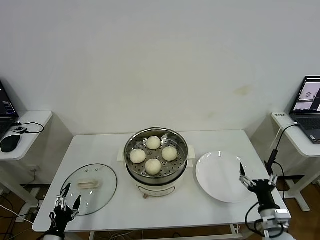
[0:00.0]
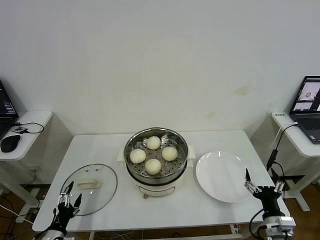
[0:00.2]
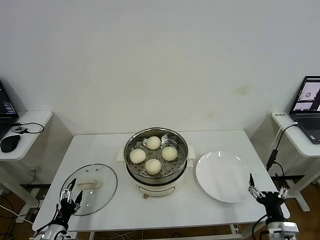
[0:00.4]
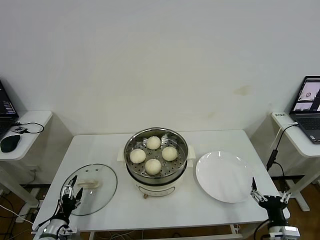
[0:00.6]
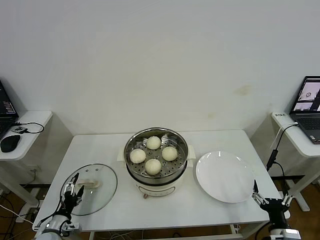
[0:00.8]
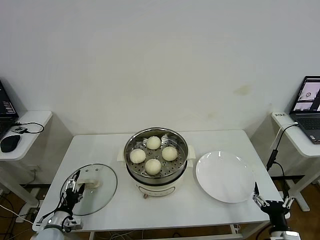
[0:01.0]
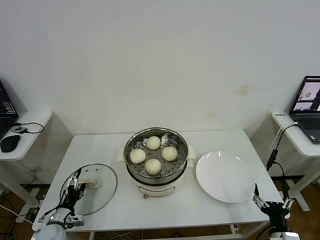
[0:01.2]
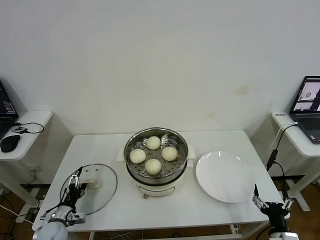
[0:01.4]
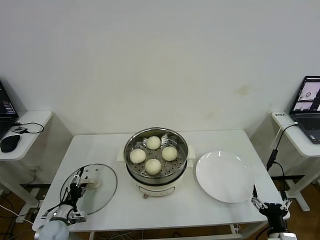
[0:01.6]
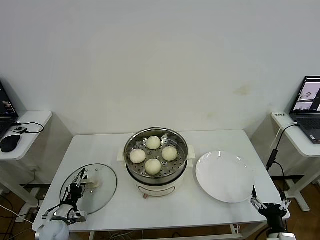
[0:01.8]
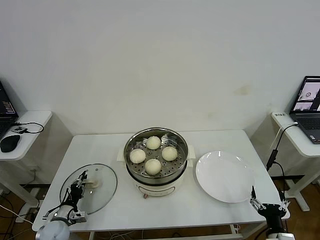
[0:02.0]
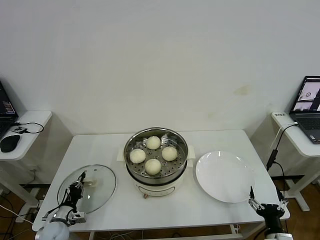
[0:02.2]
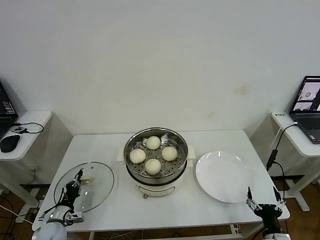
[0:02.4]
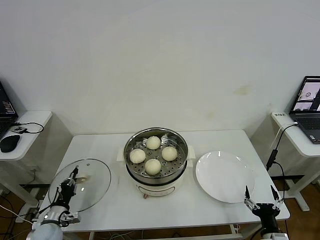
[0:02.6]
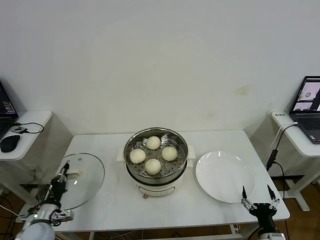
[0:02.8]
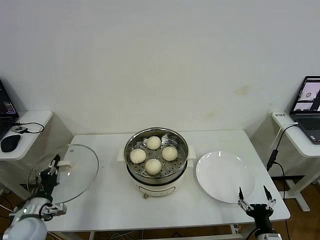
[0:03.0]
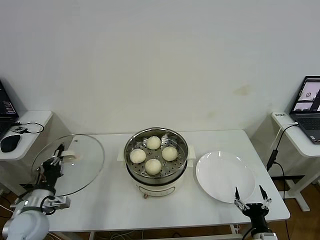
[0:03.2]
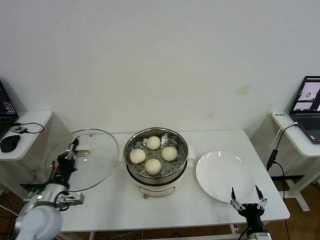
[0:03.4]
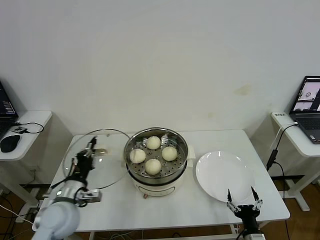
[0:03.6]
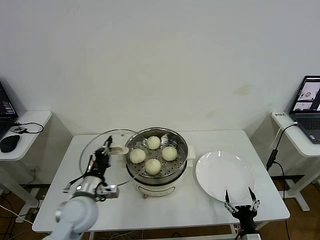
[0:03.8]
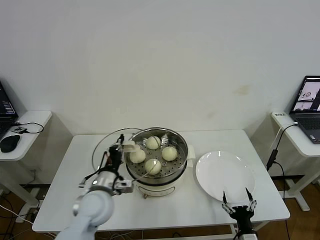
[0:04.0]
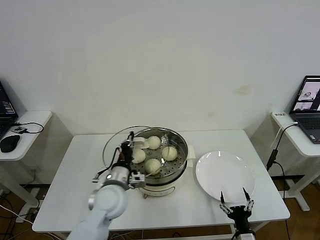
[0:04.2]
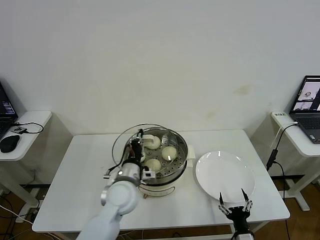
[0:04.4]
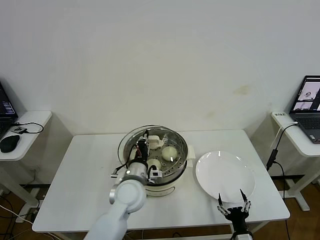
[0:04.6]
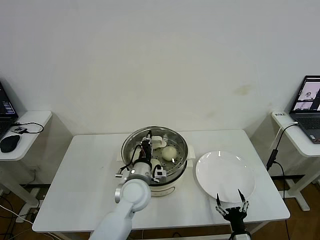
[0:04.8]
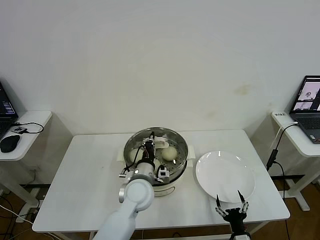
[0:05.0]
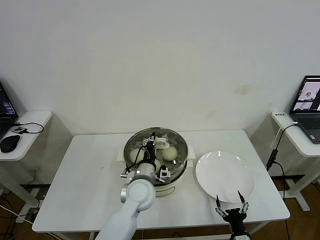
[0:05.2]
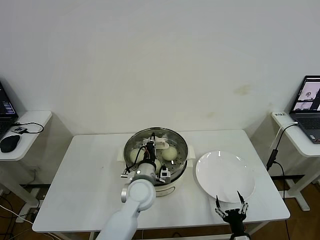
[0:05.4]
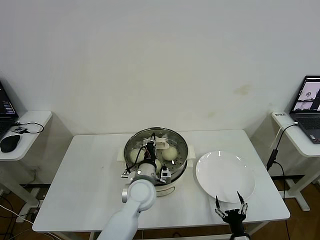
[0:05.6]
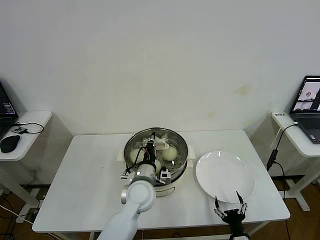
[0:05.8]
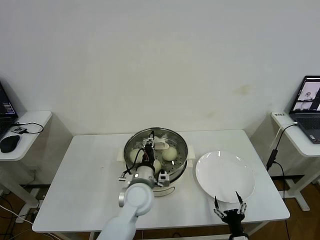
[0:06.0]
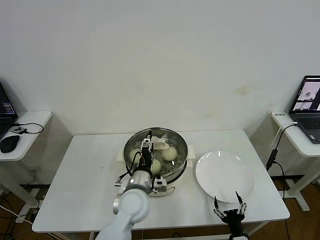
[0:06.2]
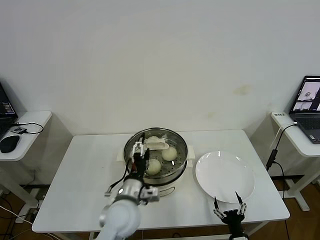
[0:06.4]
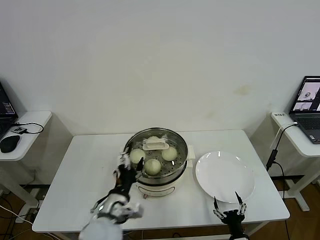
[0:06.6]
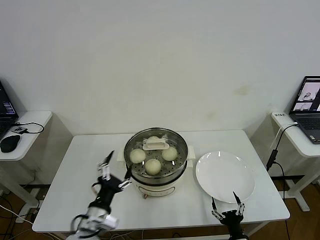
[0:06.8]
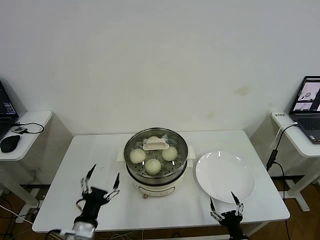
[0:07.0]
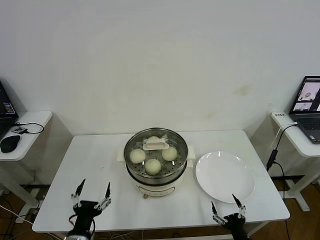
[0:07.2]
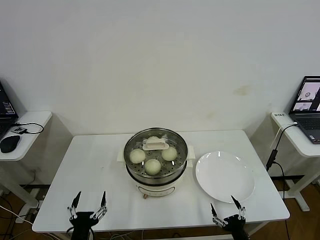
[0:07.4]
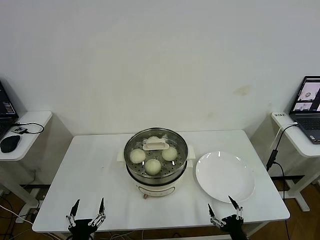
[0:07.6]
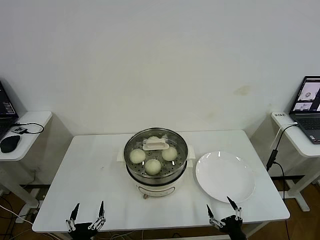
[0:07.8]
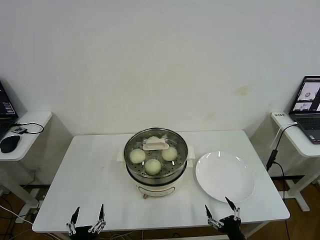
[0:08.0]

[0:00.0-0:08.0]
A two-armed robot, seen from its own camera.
Step, 0:00.0 to 0:02.2: Grasp the pot lid with left gripper.
Step, 0:02.4 to 0:06.0: Place the pot lid on the steamer with left gripper.
0:00.0 to 0:01.6: The left gripper moves forward, approximately 10 cm, while the right gripper goes approximately 5 cm backward.
0:01.6 to 0:03.2: The left gripper heads upward, covering roughly 15 cm, and closes.
0:03.2 to 0:04.8: The left gripper is displaced to the right by about 30 cm. The right gripper moves some 5 cm.
0:04.8 to 0:06.4: The left gripper shifts roughly 5 cm backward, and opens its fingers.
0:06.4 to 0:08.0: The left gripper shifts roughly 30 cm backward, to the left and downward; the right gripper shifts by some 5 cm.

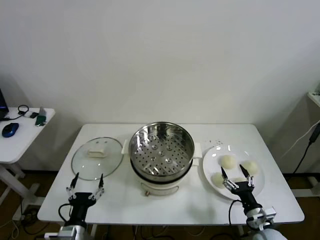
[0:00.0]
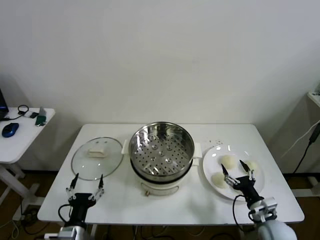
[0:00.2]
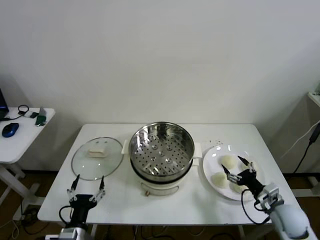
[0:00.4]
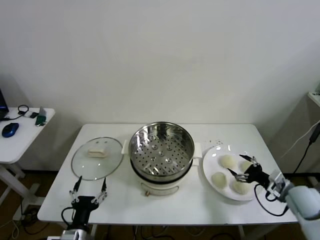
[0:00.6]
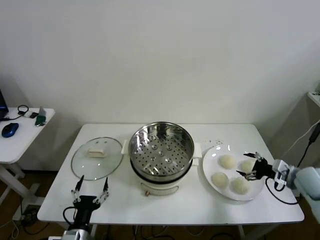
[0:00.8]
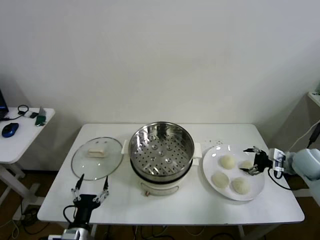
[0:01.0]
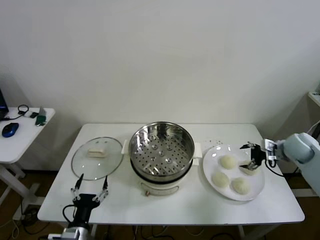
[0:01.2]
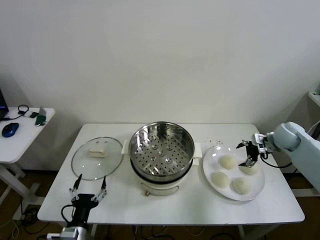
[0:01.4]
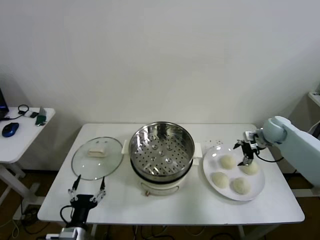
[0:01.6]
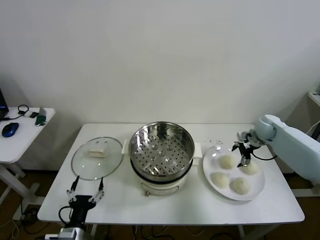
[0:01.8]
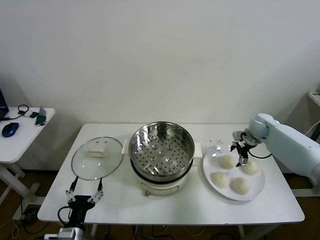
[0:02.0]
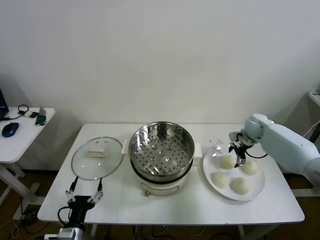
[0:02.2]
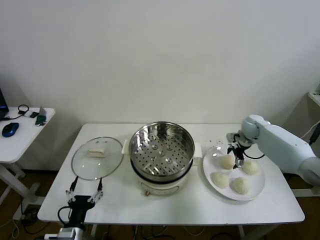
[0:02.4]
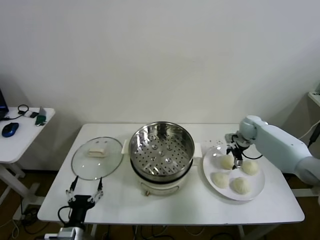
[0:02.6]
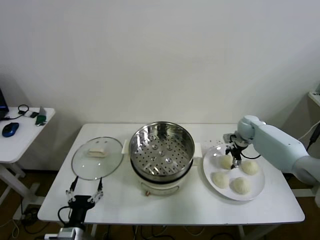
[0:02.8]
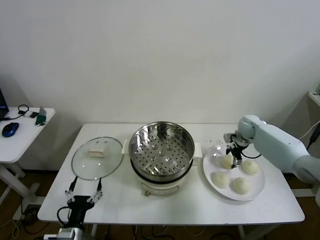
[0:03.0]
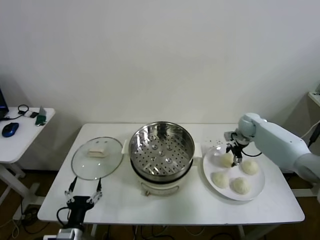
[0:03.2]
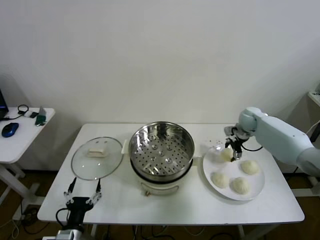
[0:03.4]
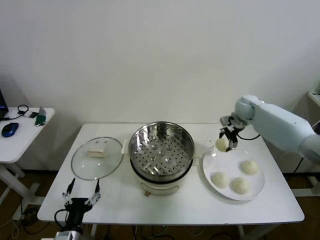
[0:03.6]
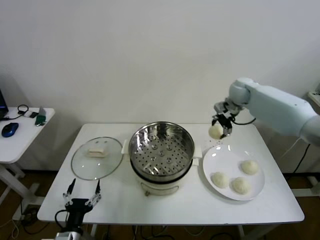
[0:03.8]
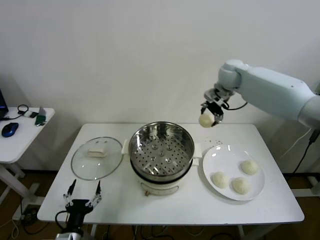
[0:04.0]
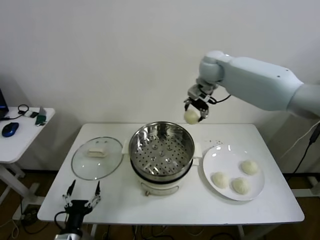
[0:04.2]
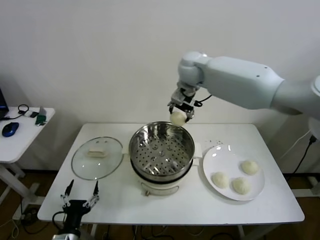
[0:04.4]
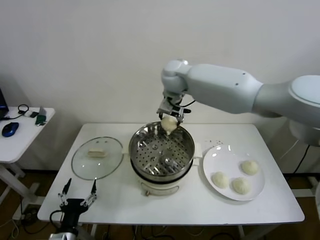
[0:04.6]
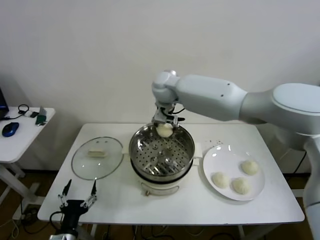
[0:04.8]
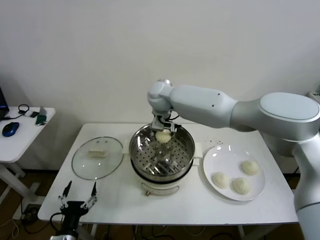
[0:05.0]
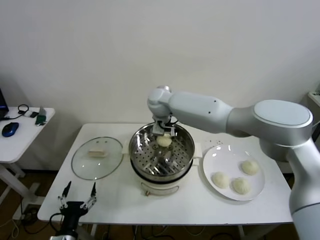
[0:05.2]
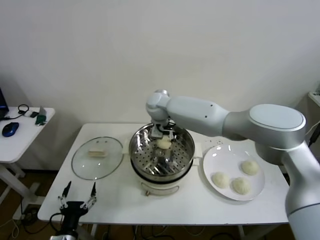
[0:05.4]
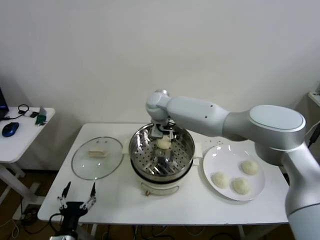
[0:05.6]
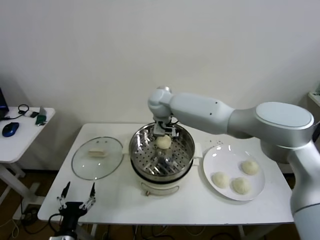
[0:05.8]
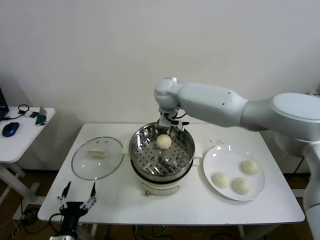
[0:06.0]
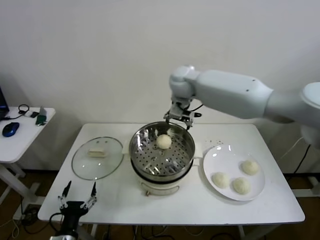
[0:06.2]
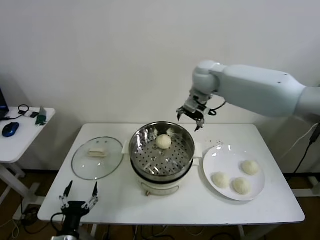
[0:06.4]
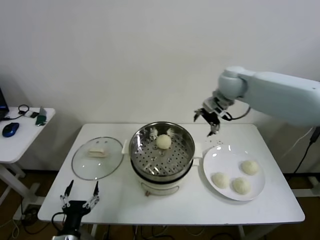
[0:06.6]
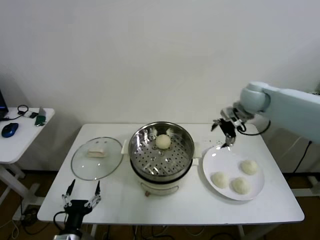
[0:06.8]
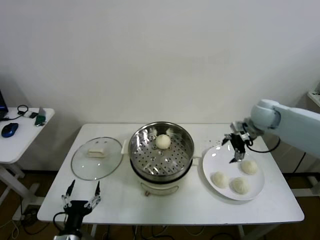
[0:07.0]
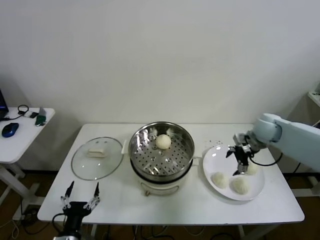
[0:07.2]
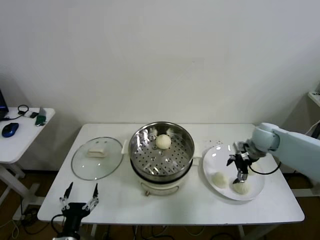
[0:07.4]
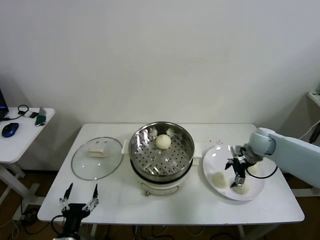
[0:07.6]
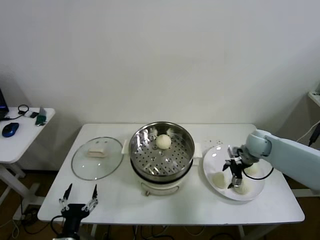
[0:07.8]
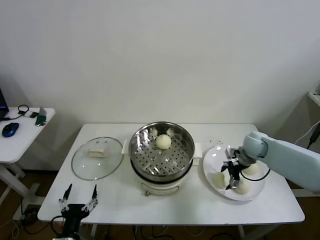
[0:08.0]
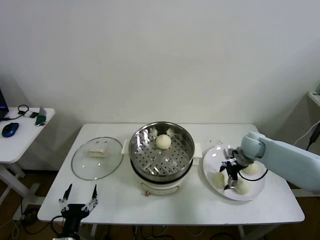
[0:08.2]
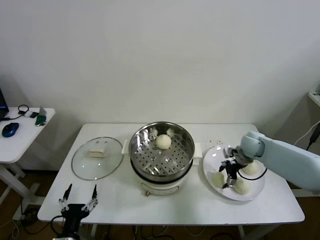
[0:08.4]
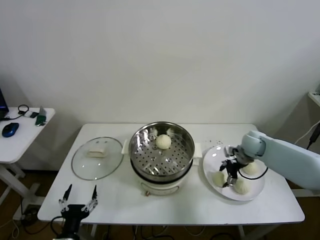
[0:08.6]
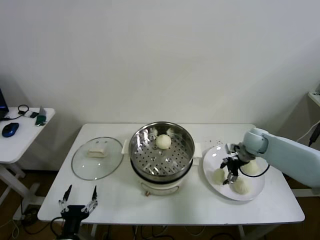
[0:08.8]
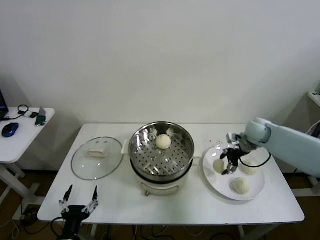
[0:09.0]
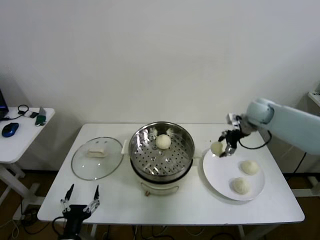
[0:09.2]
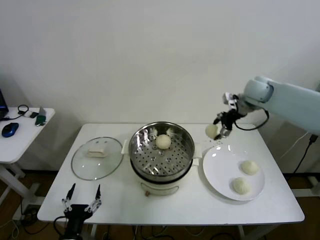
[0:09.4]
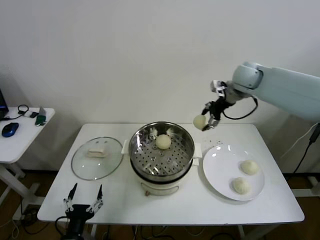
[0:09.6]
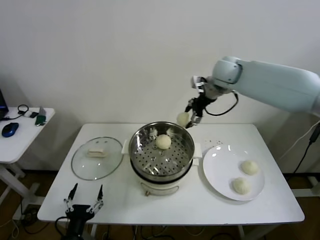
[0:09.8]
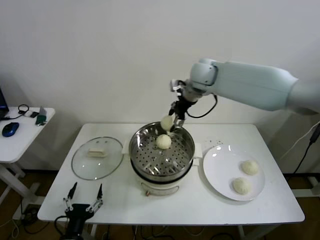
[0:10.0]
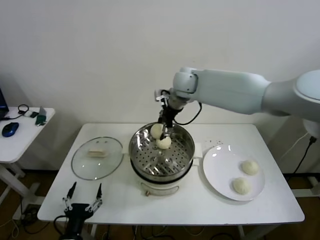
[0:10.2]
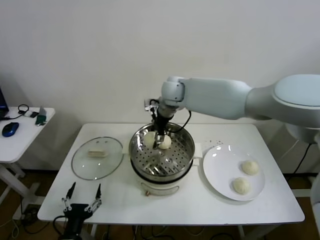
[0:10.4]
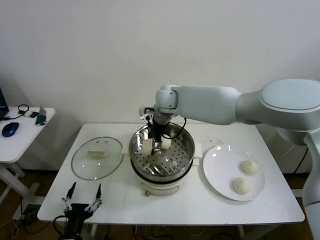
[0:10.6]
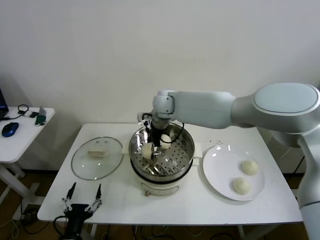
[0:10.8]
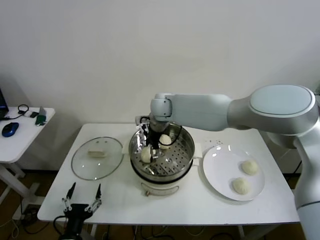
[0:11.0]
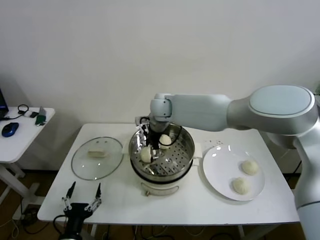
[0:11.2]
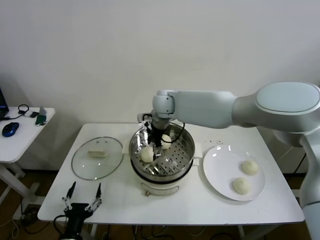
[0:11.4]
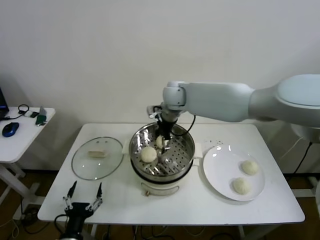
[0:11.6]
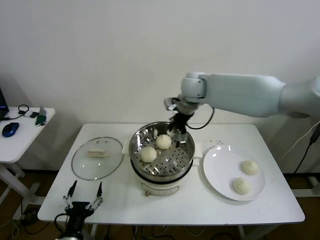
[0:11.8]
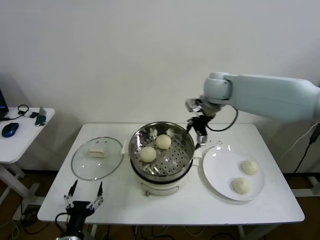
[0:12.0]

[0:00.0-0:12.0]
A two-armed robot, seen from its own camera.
Step, 0:00.0 to 0:02.8: Grasp the baozi in the plate with right gripper.
Step, 0:03.0 to 0:05.6: Place the baozi on the steamer with right gripper.
Step, 0:05.8 to 0:08.4: Grasp the baozi in the plate with right gripper.
Step, 0:08.6 to 0:11.0: Place the baozi on the steamer with right gripper.
0:01.6 to 0:03.0: The right gripper shifts some 5 cm to the left.
0:03.0 to 0:04.4: The right gripper is displaced to the left and upward by roughly 40 cm.
0:04.4 to 0:06.0: The right gripper heads downward, covering some 5 cm.
0:06.0 to 0:07.6: The right gripper travels to the right and downward by roughly 40 cm.
0:07.6 to 0:09.0: The right gripper shifts by approximately 5 cm.
0:09.0 to 0:10.4: The right gripper heads to the left, covering approximately 35 cm.
0:10.4 to 0:12.0: The right gripper heads to the right, covering some 15 cm.

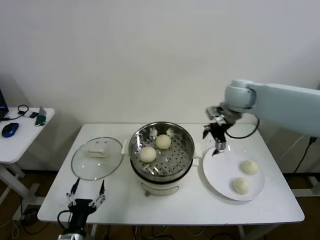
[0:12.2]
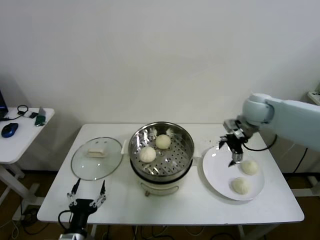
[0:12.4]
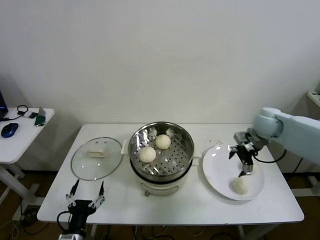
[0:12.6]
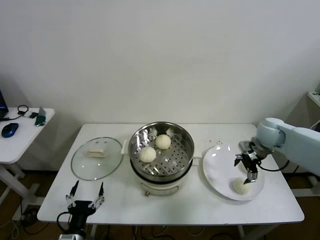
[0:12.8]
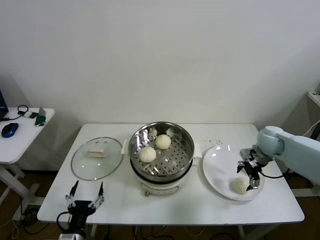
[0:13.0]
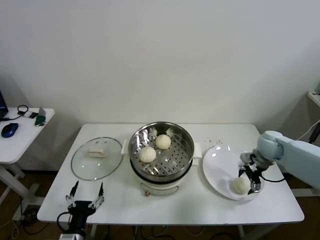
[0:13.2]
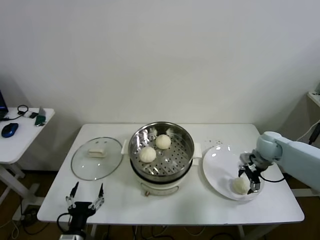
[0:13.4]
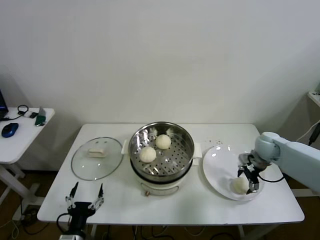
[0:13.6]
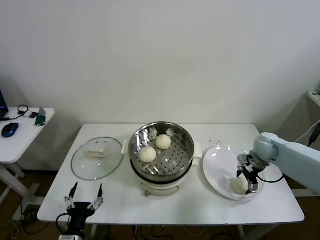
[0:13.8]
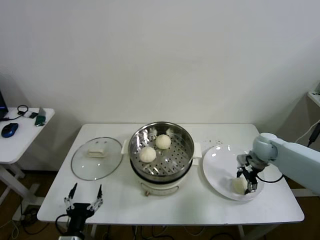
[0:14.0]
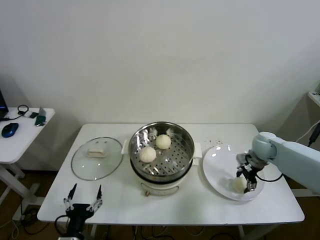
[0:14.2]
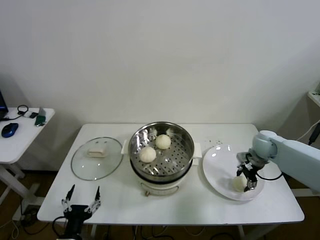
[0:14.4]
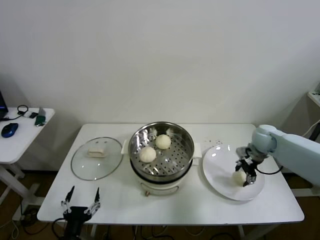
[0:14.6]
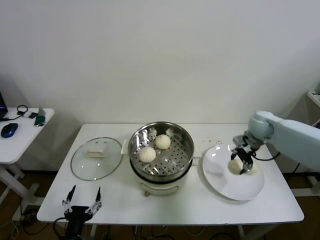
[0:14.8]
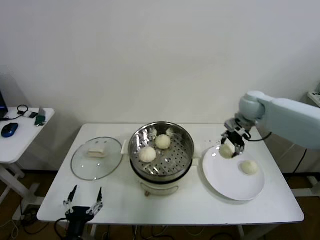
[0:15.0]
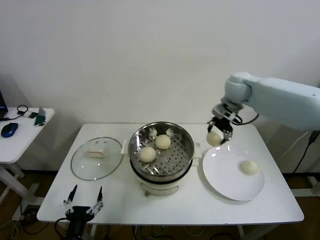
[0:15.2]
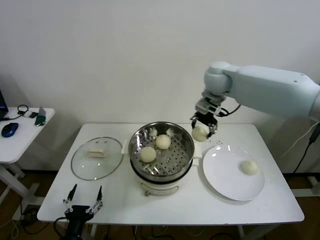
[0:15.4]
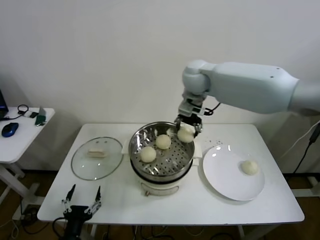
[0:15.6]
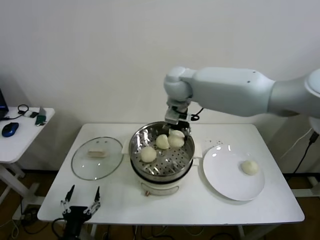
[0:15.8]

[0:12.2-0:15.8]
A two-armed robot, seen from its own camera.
Step, 0:12.2 to 0:14.2: Grasp the baozi in the plate with right gripper.
0:12.2 to 0:14.0: The right gripper goes roughly 25 cm downward and to the right.
0:14.0 to 0:15.8: The right gripper heads to the left and upward, covering some 40 cm.
